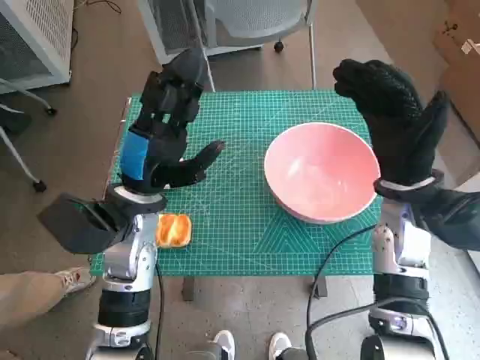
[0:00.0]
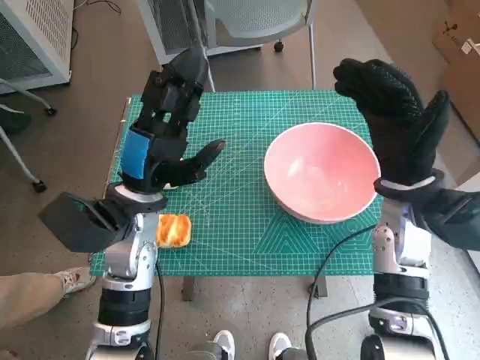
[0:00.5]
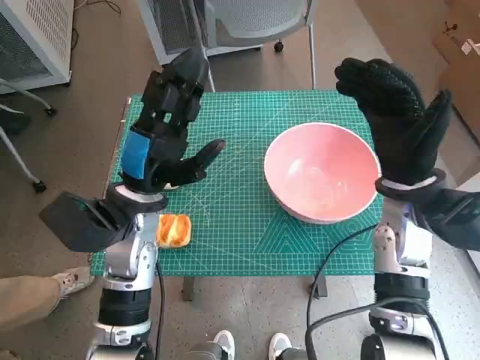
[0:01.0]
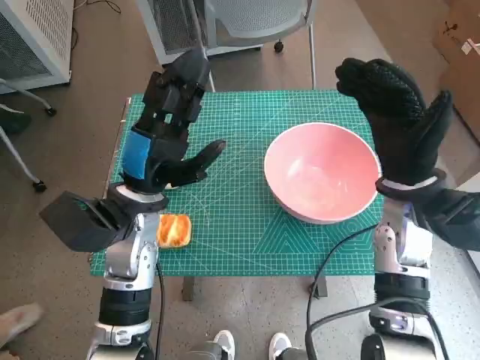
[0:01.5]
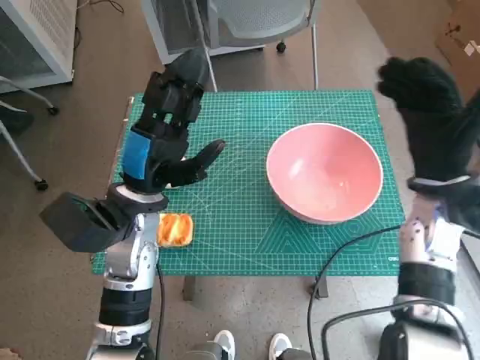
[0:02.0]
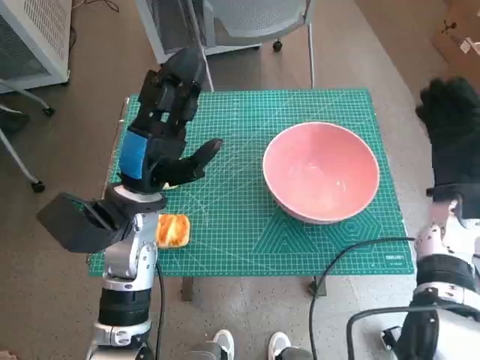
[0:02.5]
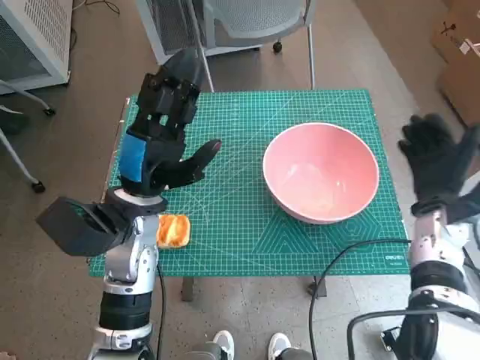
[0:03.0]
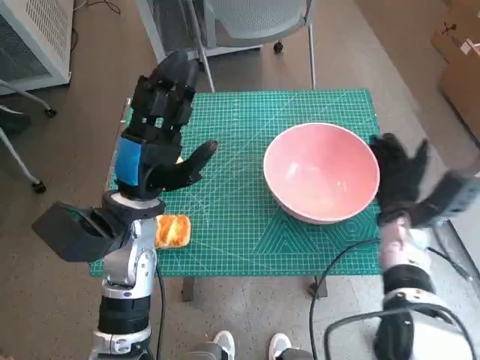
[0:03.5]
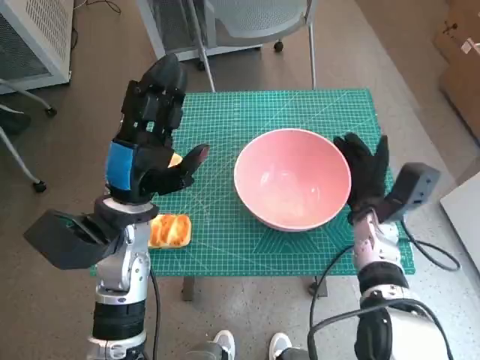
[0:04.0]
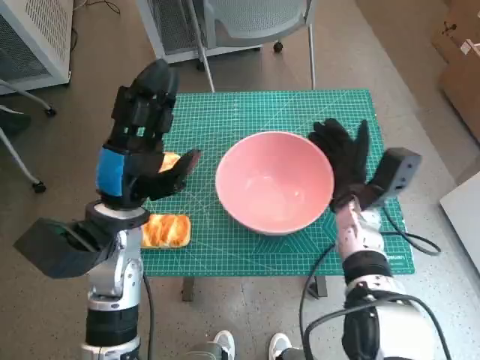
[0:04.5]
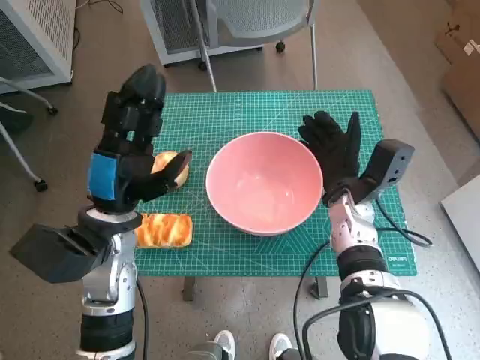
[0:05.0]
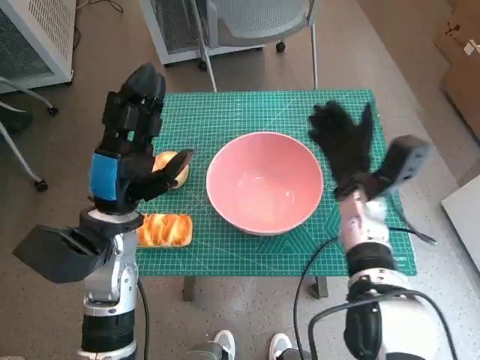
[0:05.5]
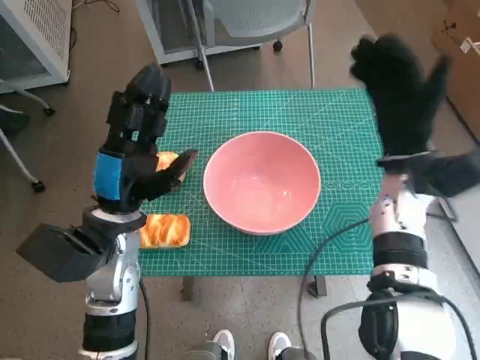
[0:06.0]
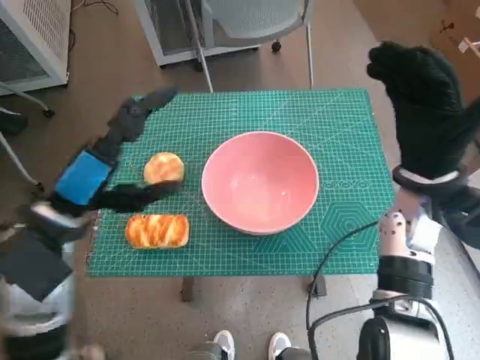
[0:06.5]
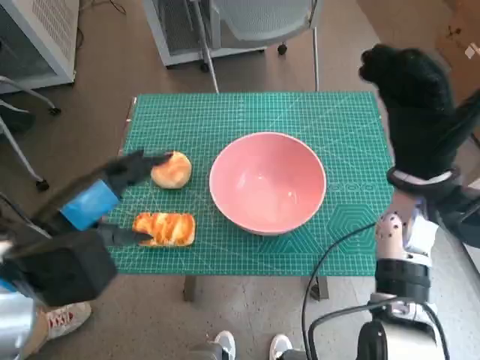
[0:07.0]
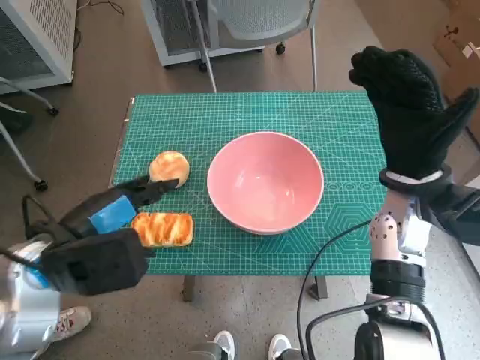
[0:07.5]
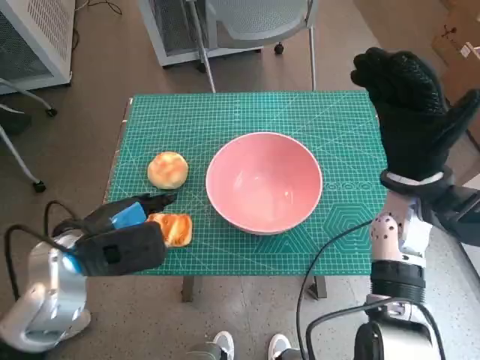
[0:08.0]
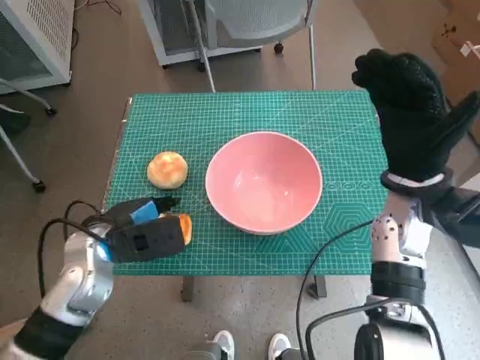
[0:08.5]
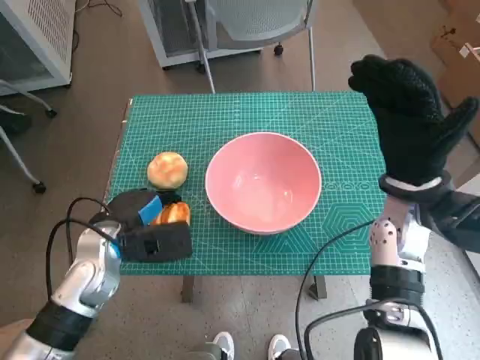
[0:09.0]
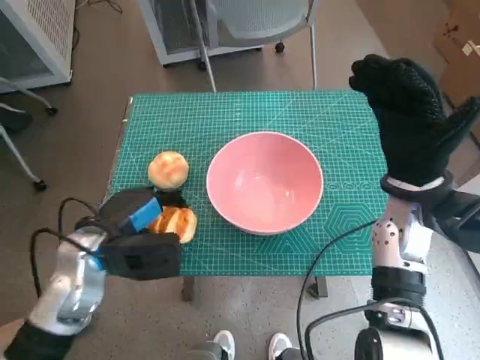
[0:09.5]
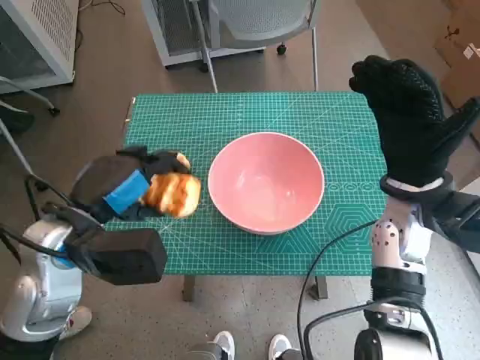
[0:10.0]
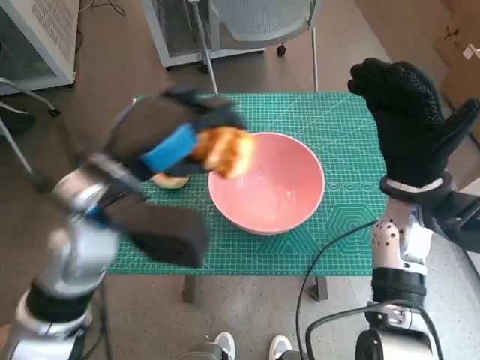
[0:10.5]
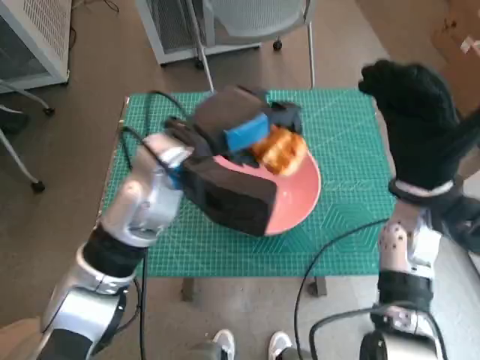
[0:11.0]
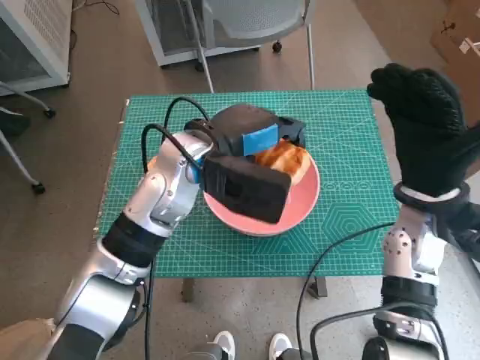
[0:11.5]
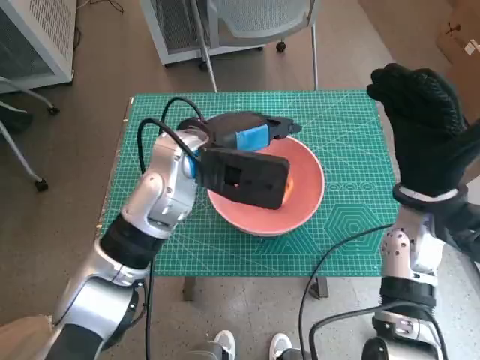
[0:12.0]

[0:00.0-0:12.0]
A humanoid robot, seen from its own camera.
Step, 0:00.0 to 0:05.0: Move the pink bowl to the center of table with right hand.
Step, 0:05.5 to 0:09.0: Grasp the long bread with left hand.
0:02.0 to 0:04.0: The right hand is displaced downward by some 10 cm.
0:04.0 to 0:06.0: The right hand is displaced upward by about 10 cm.
0:10.0 to 0:12.0: The left hand goes approximately 15 cm to the right and forward.

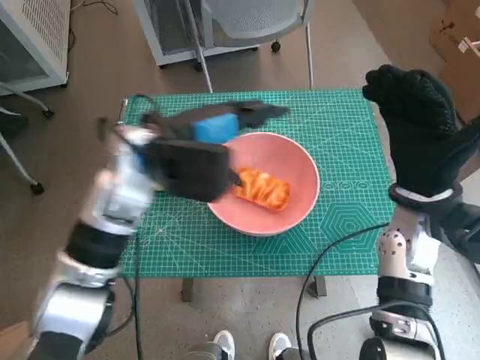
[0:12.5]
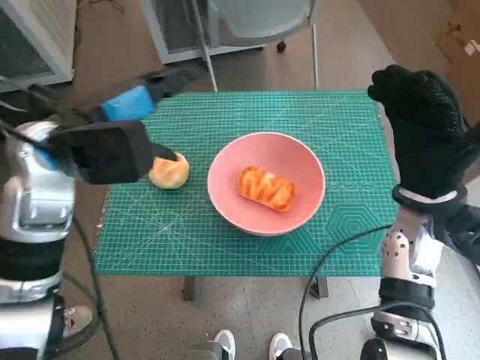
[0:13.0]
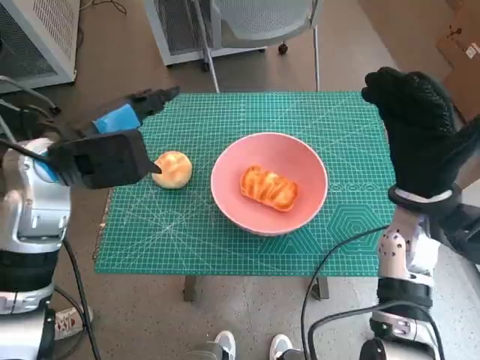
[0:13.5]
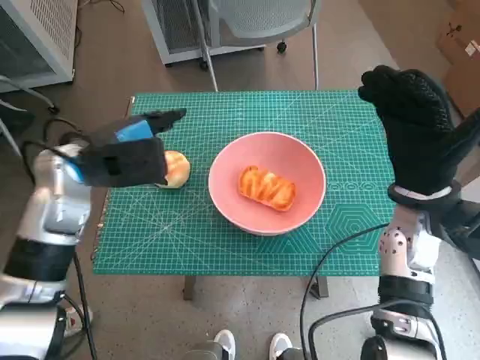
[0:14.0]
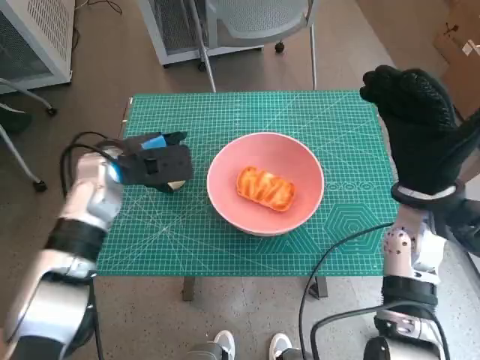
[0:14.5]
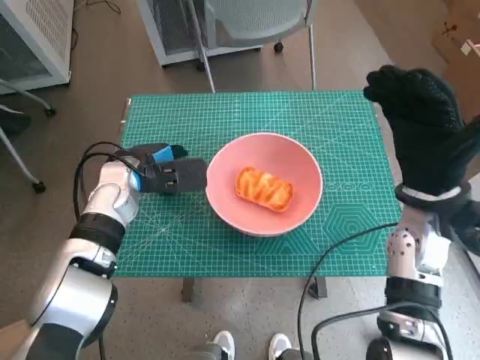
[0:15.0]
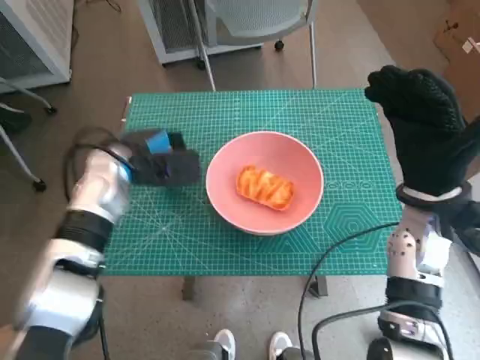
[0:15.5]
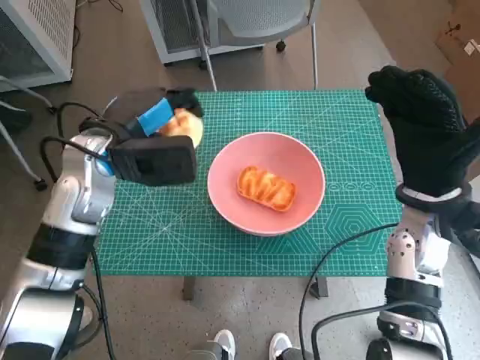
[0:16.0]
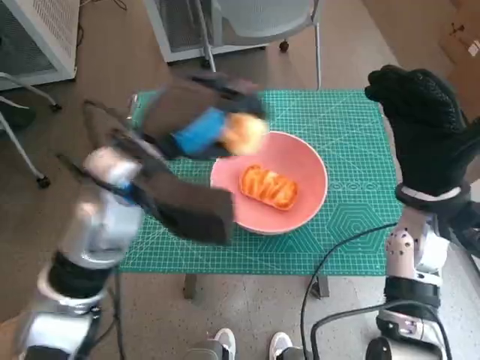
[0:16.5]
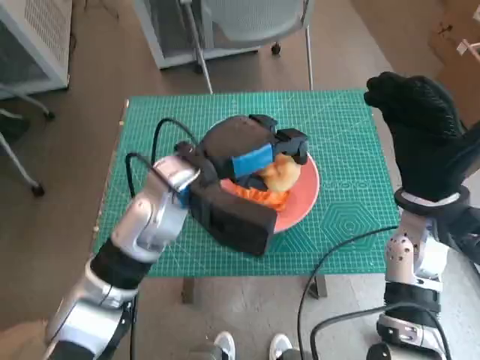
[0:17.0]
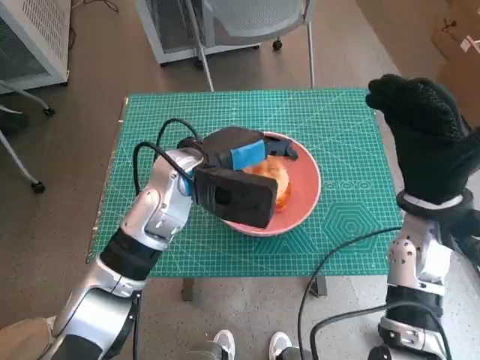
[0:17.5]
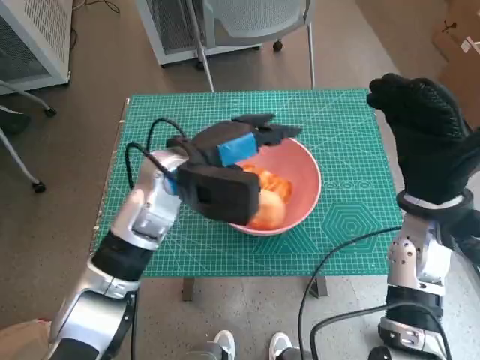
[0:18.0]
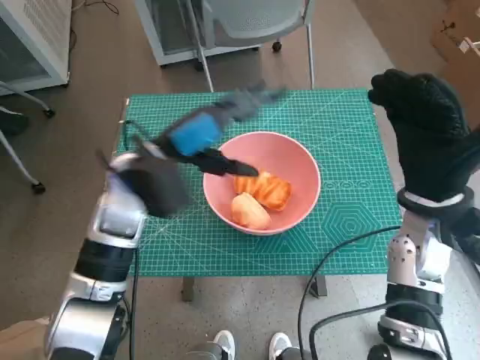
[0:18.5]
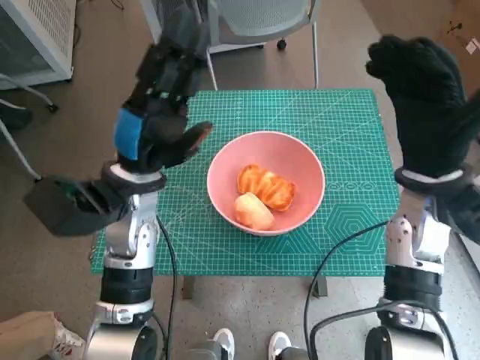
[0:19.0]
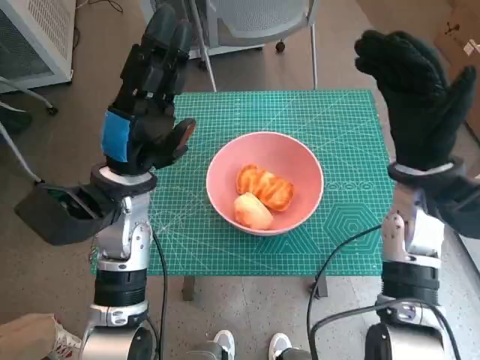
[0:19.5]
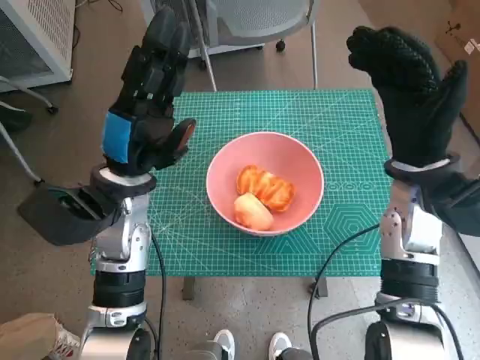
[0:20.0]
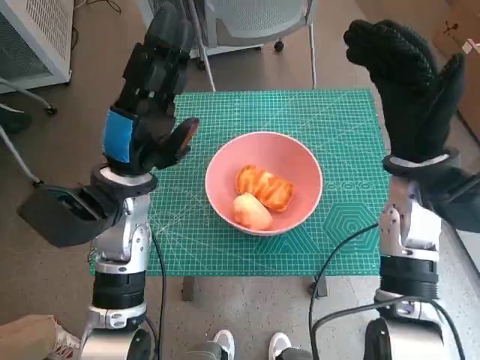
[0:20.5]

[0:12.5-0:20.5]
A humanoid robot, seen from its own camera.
Step, 0:12.5 to 0:15.0: Grasp the round bread with left hand.
Step, 0:15.5 to 0:17.5: Place the round bread in pink bowl with left hand.
0:12.5 to 0:14.5: The left hand is displaced to the left and downward by roughly 10 cm.
0:14.5 to 0:16.5: The left hand moves upward, to the right and backward, approximately 15 cm.
0:16.5 to 0:18.5: The left hand moves about 5 cm.
0:18.5 to 0:20.5: The right hand ends up about 5 cm from where it was.
